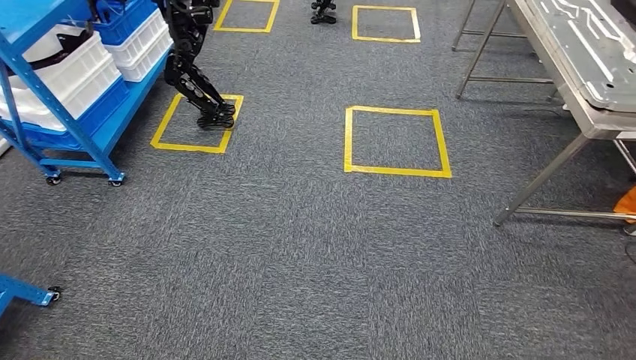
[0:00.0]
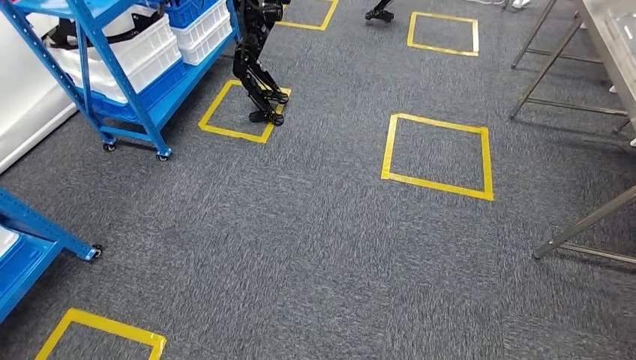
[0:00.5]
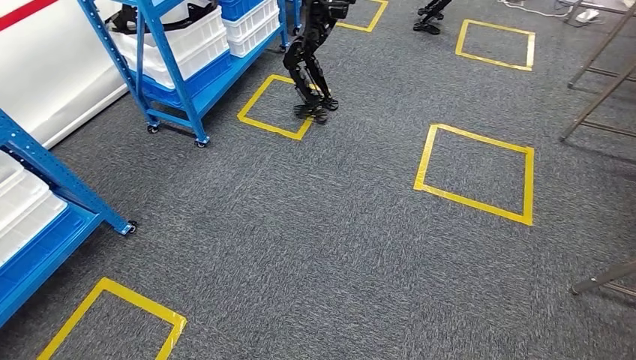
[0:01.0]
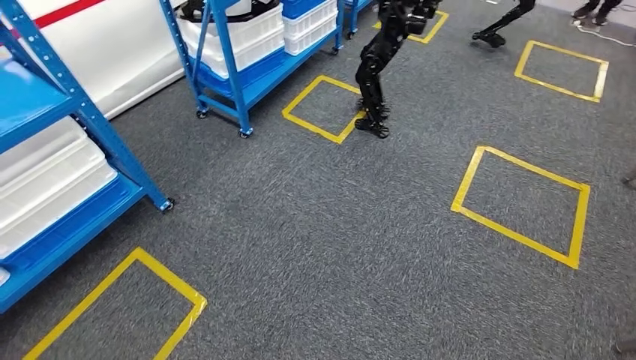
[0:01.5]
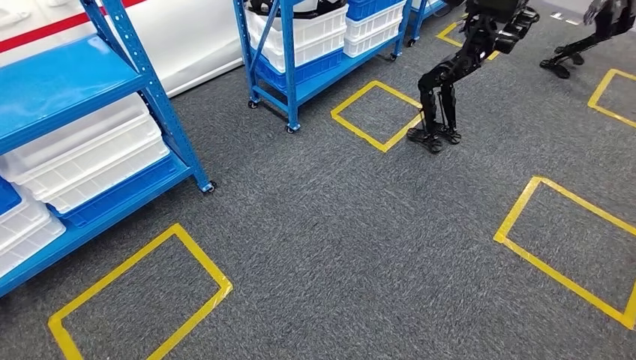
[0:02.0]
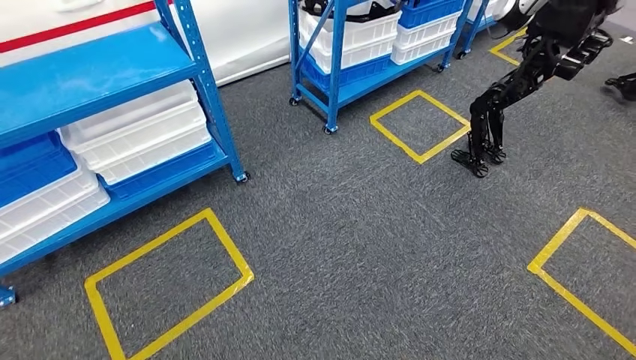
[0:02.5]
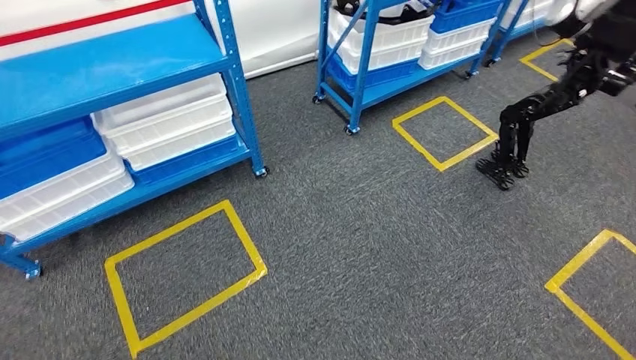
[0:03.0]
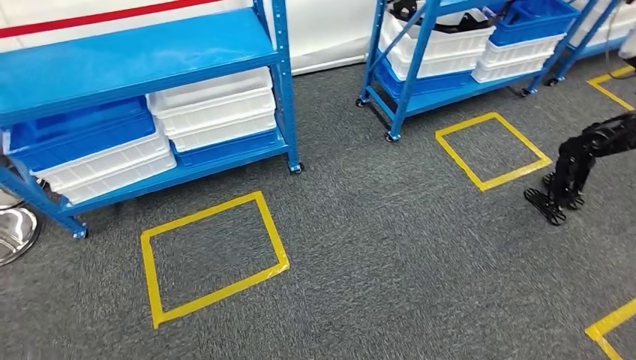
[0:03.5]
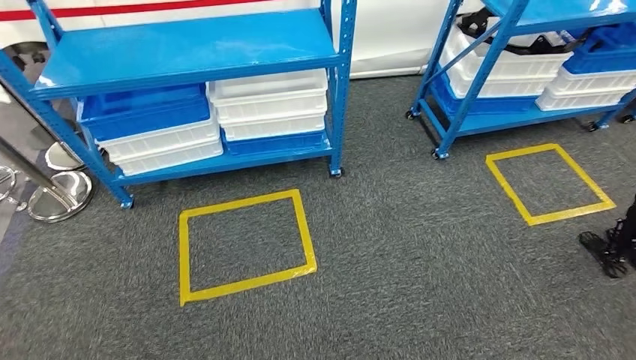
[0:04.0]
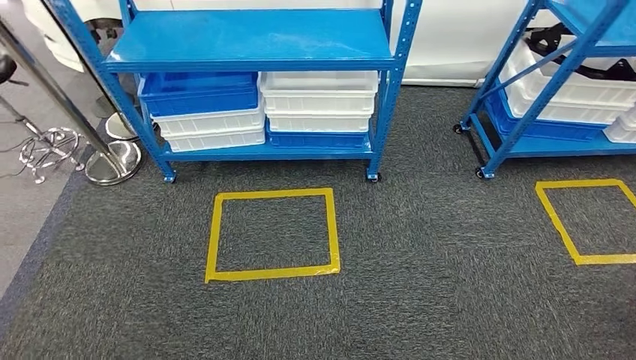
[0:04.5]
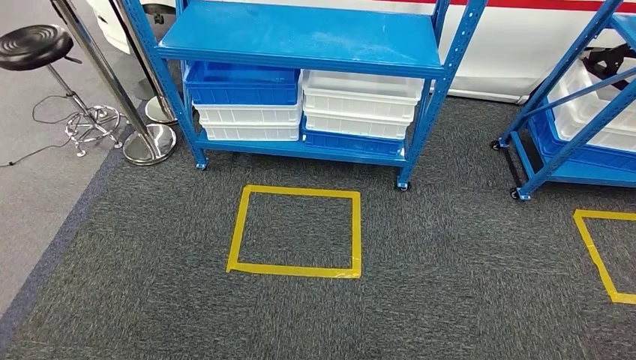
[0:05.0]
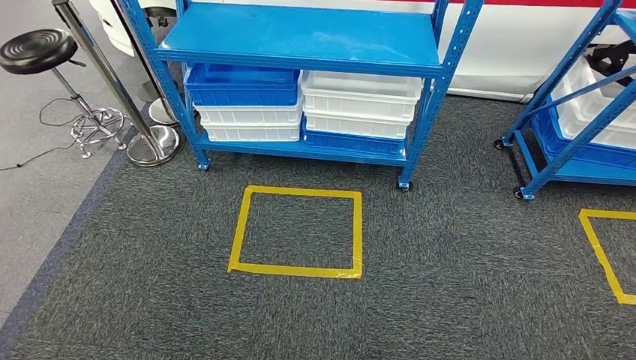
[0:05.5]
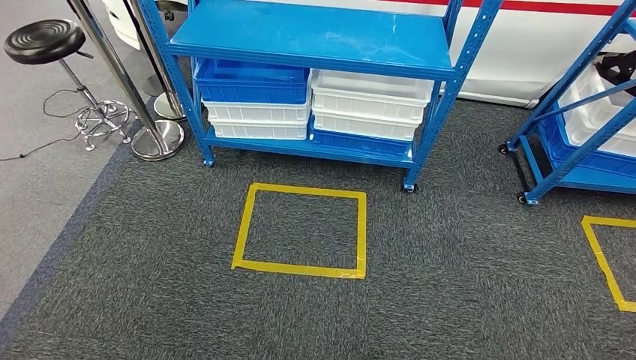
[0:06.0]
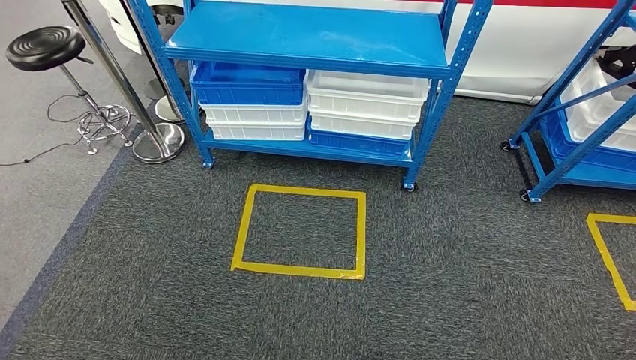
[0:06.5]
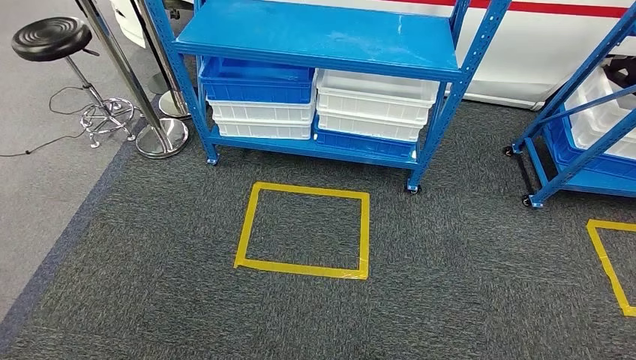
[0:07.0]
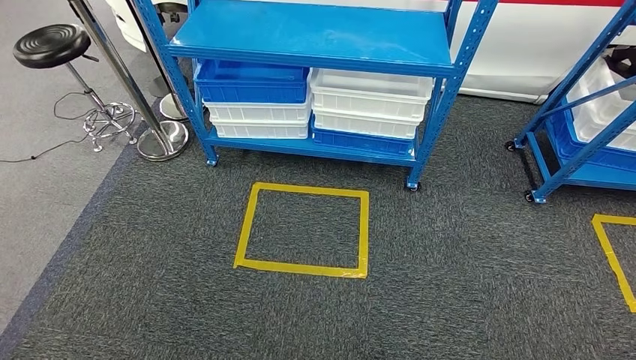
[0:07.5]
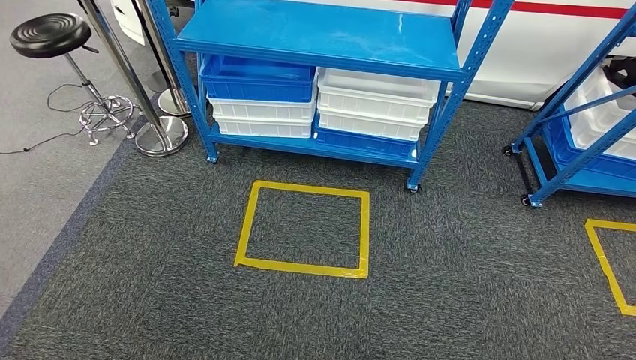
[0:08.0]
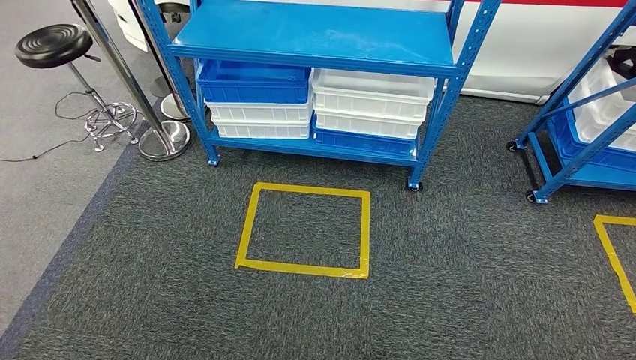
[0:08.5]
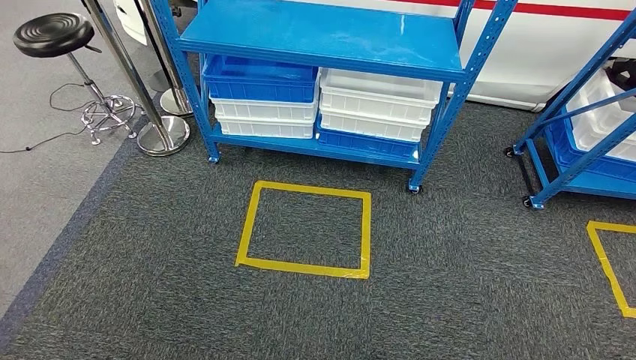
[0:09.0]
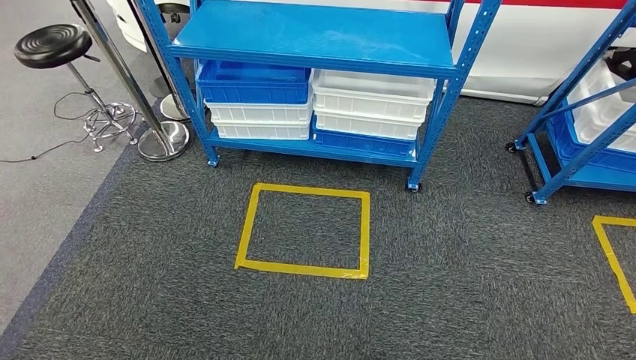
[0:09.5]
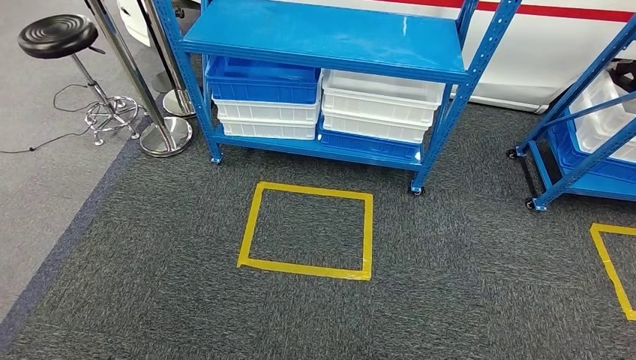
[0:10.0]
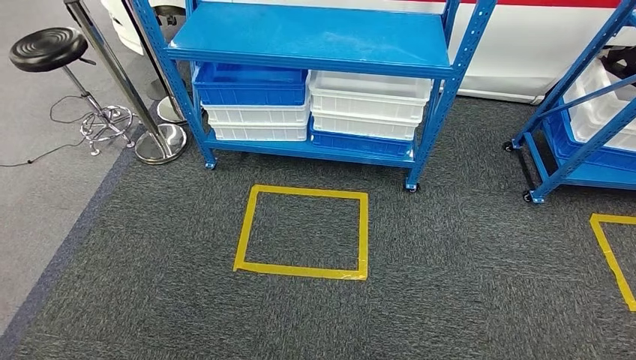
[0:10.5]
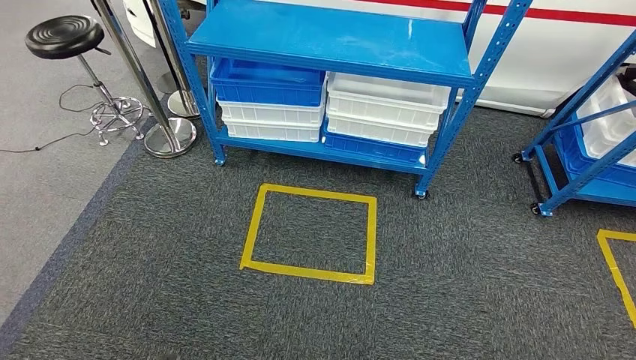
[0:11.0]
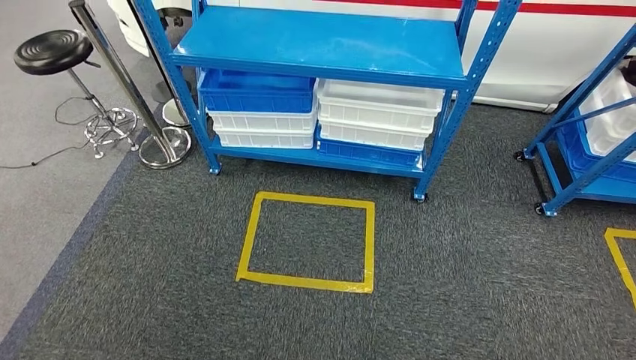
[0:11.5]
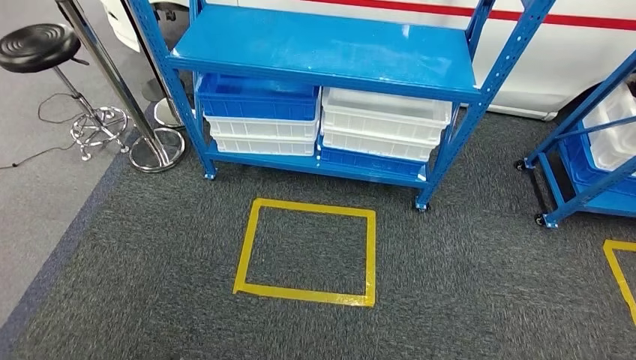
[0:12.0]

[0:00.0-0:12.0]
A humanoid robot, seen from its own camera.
0:06.0 to 0:08.0: The hands make only small movements.
0:08.0 to 0:10.0: The left hand is displaced backward by approximately 5 cm.

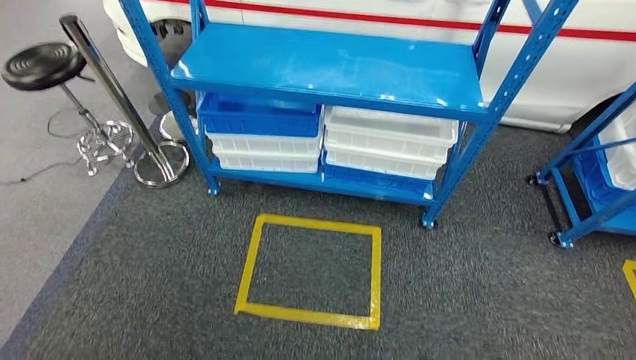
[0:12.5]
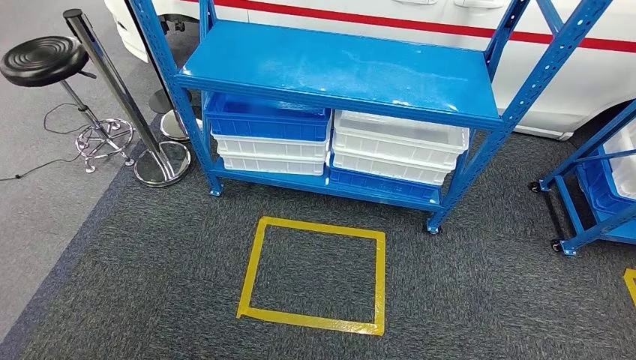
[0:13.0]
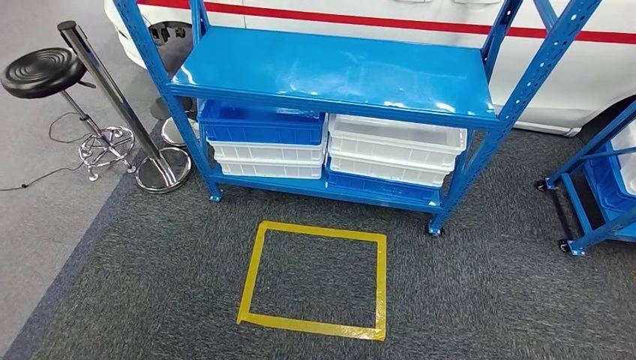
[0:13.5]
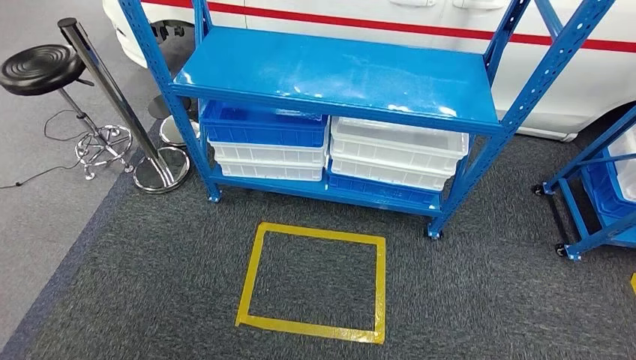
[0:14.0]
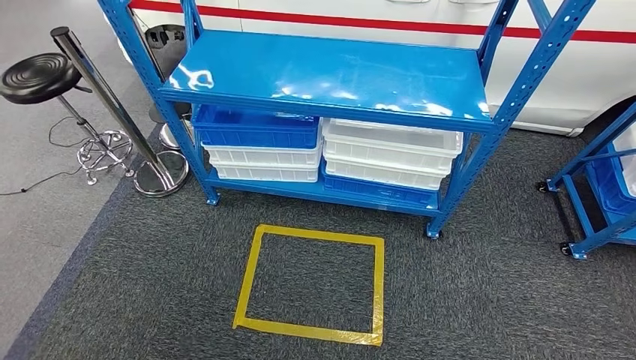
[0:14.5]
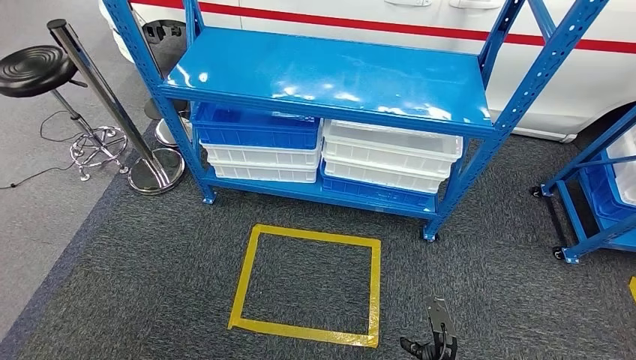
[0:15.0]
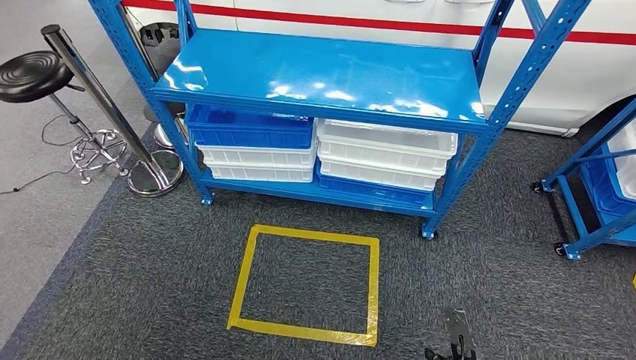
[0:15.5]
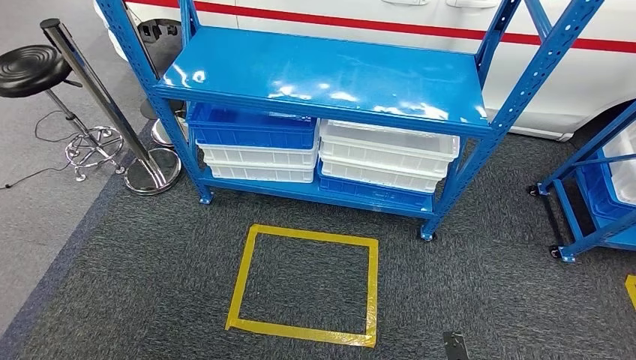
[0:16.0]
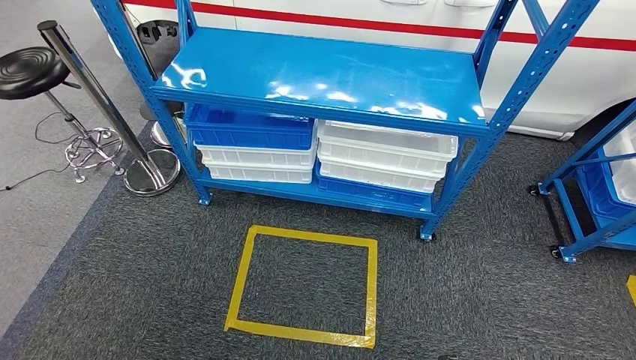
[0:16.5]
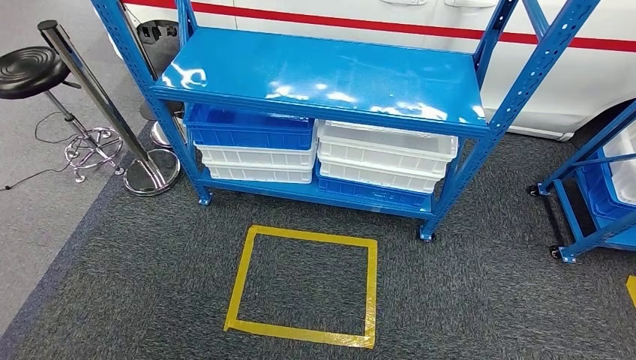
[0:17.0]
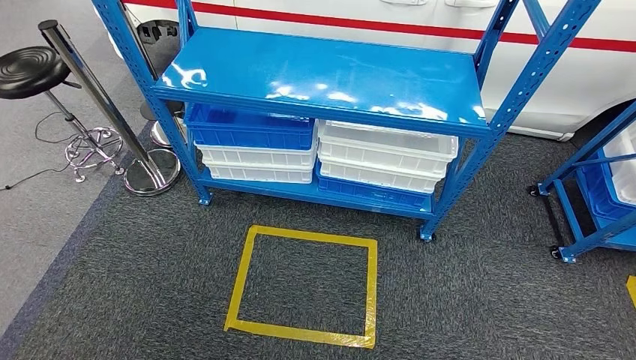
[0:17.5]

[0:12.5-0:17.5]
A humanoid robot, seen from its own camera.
Step, 0:12.5 to 0:17.5: Move to the initial position of the shelf.
0:15.0 to 0:17.5: The right hand is displaced backward by some 15 cm. The left hand heads forward, covering approximately 20 cm.
